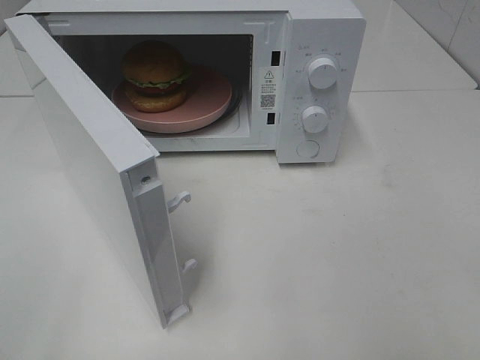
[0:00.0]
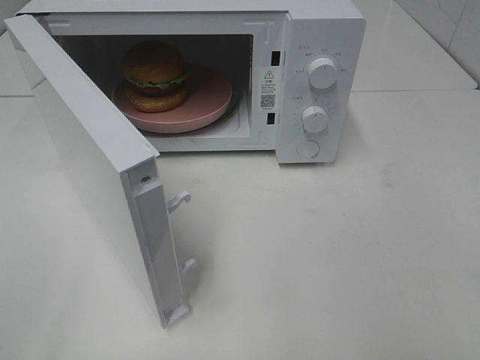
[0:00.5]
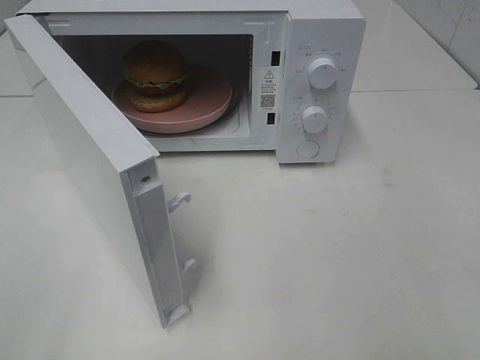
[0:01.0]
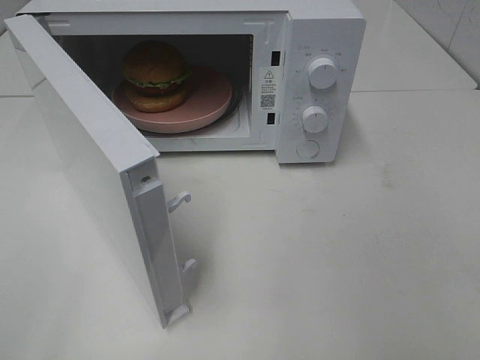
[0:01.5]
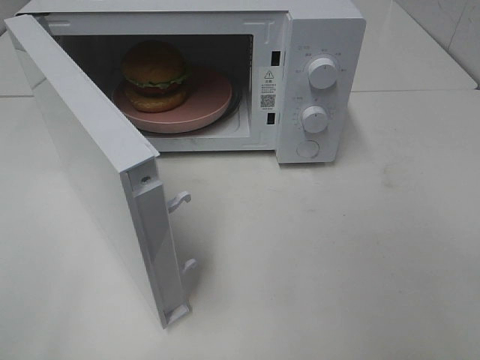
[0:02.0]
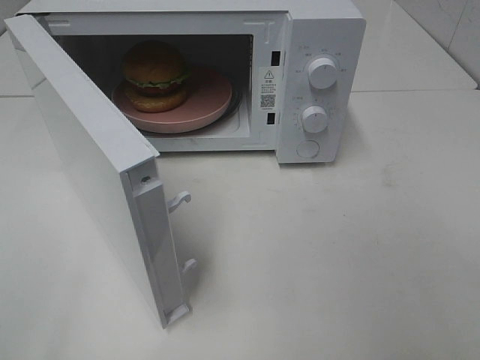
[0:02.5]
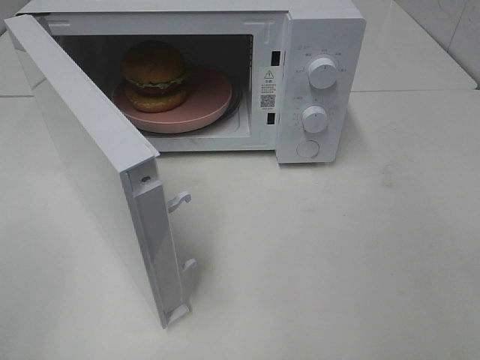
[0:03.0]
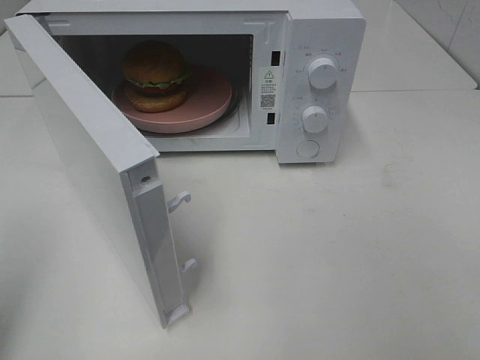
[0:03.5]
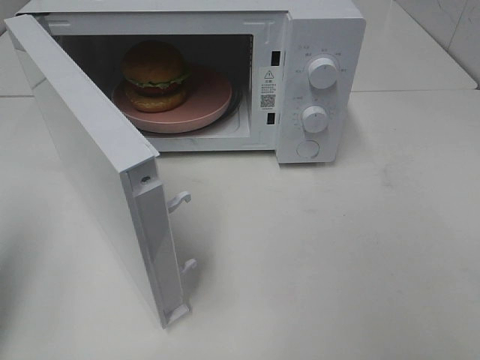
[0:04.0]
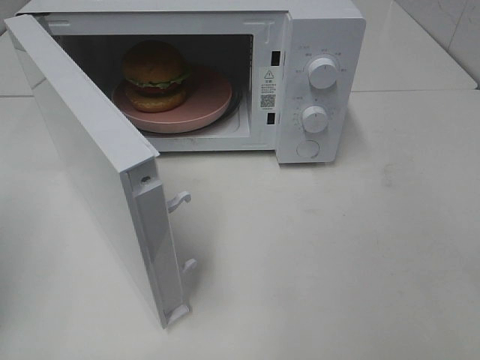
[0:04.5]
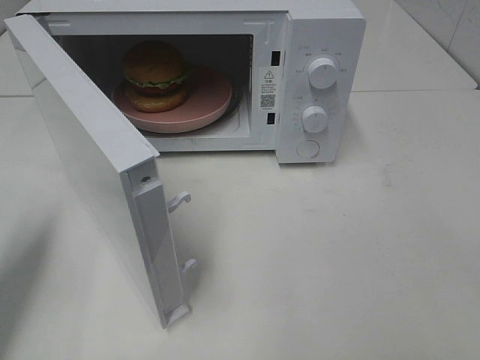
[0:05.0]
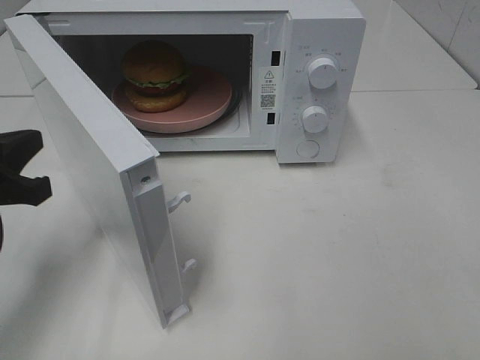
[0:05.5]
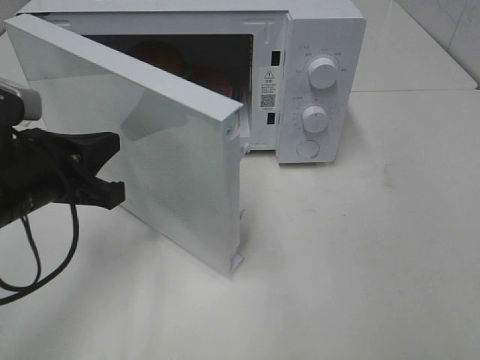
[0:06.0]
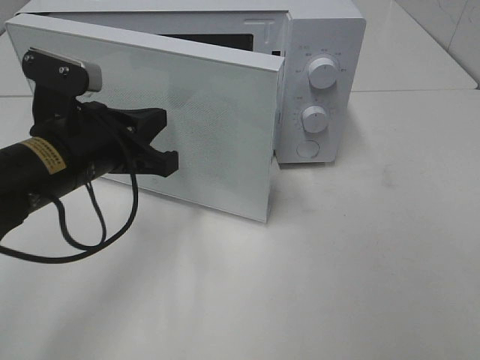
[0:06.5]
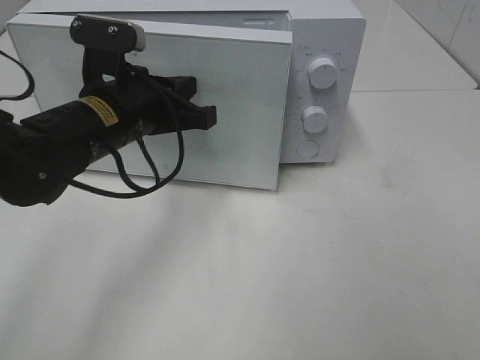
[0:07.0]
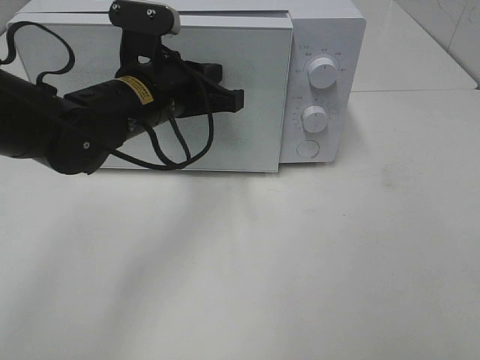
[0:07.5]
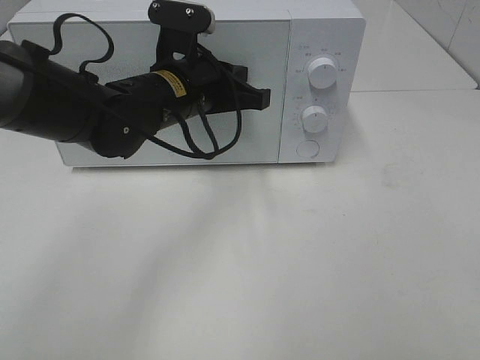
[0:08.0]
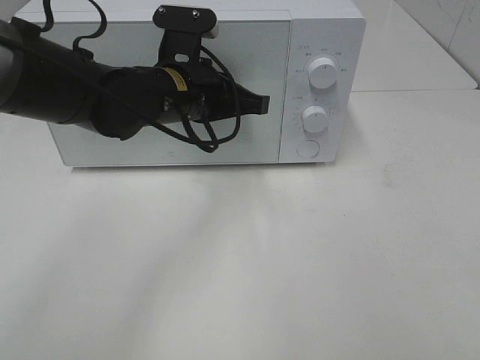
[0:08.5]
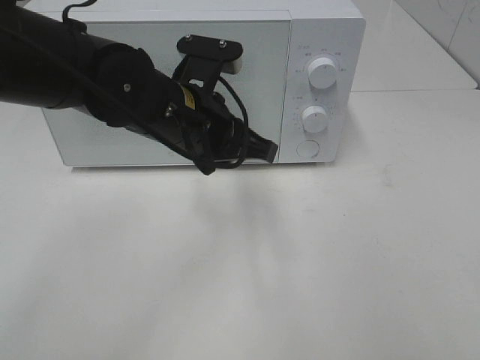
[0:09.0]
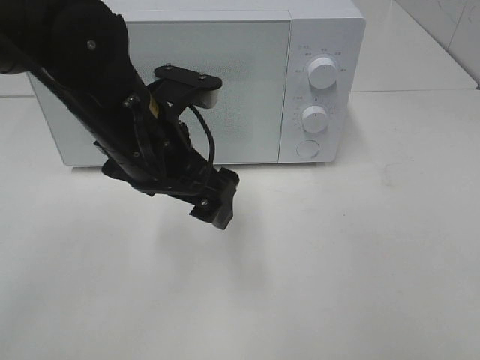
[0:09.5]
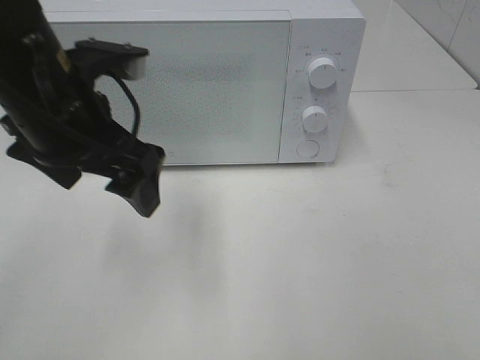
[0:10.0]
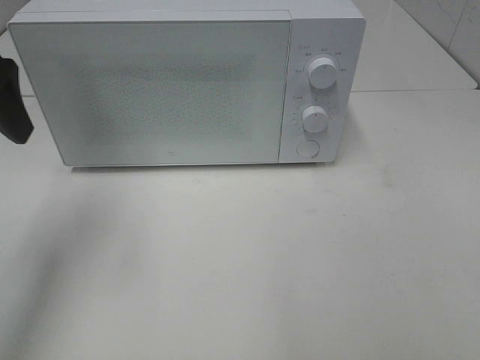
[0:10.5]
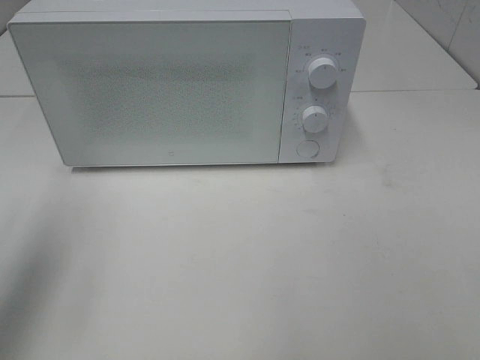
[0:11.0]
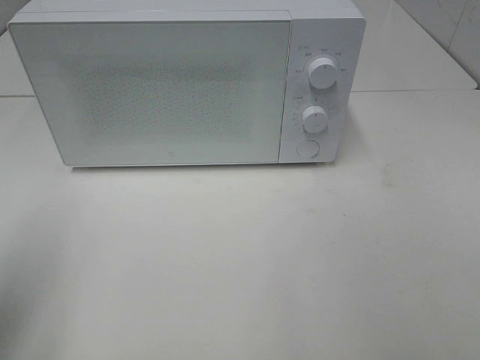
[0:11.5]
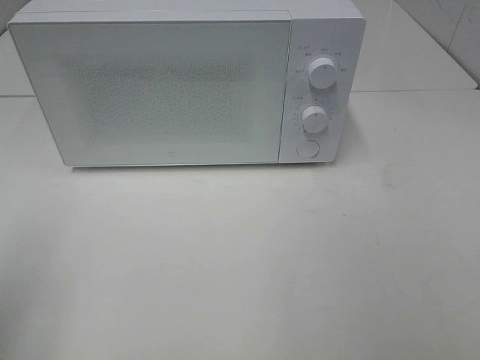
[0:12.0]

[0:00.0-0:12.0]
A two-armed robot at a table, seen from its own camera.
Task of the whole recording: Heat the burger.
Step, 0:00.0 to 0:08.5: Left hand: close the microwave door.
0:00.0 to 0:02.0: Both grippers stay put.
0:02.0 to 0:04.0: The left gripper is displaced forward by approximately 15 cm, and closes up.
0:04.0 to 0:06.0: The left gripper shifts some 15 cm to the right, downward and forward.
0:06.0 to 0:08.0: The left gripper shifts some 20 cm to the right and forward.
0:08.0 to 0:10.0: The left gripper goes some 15 cm backward, to the left and upward, and opens.
0:10.0 to 0:12.0: The left gripper shifts roughly 25 cm to the left and backward.

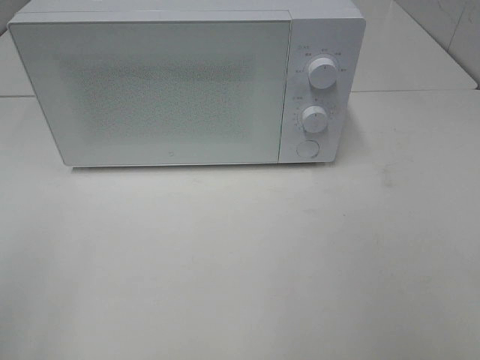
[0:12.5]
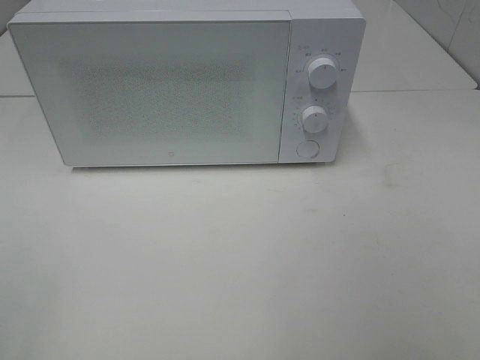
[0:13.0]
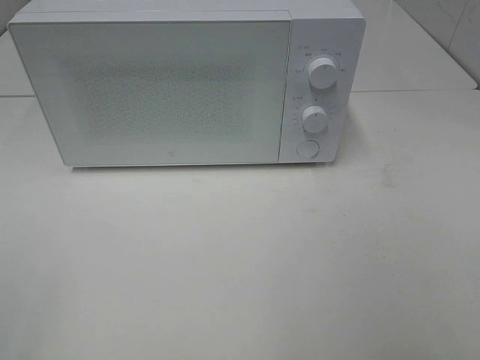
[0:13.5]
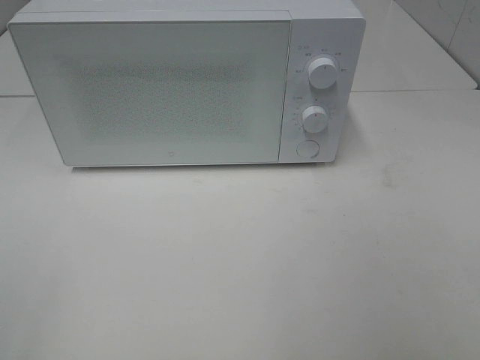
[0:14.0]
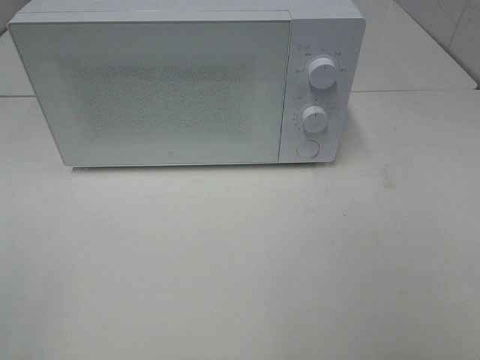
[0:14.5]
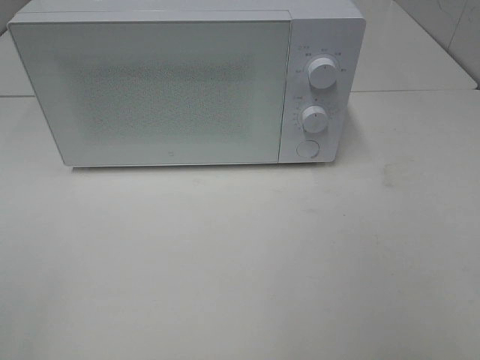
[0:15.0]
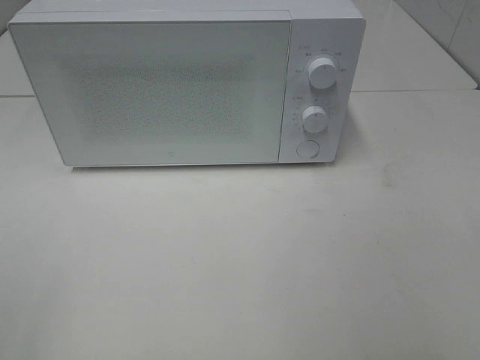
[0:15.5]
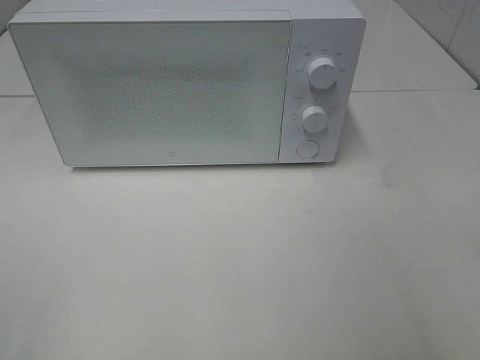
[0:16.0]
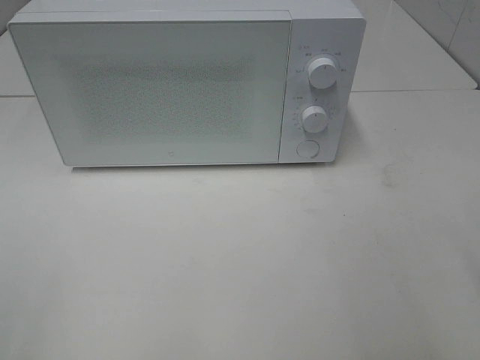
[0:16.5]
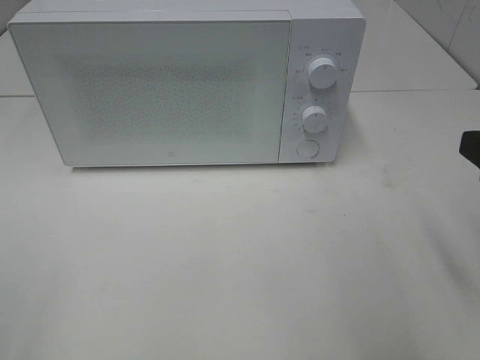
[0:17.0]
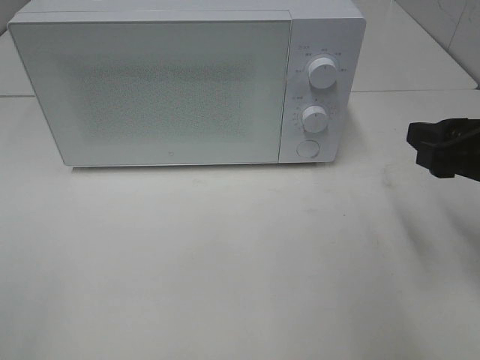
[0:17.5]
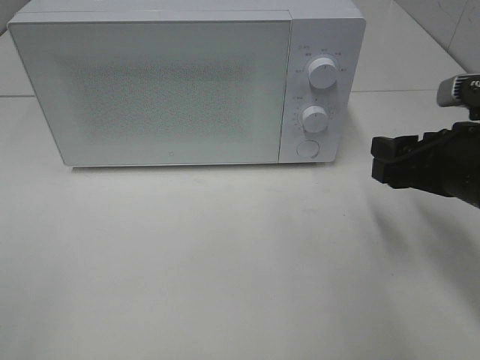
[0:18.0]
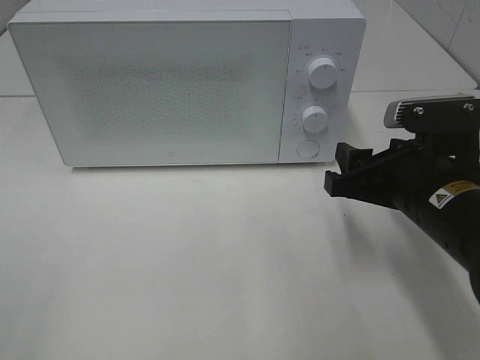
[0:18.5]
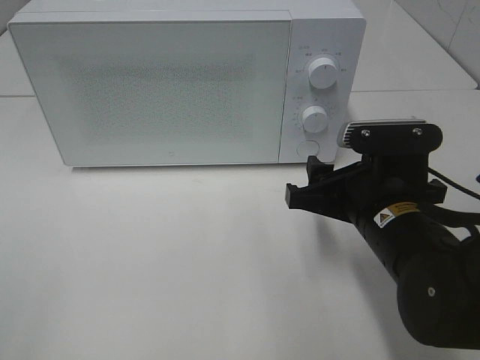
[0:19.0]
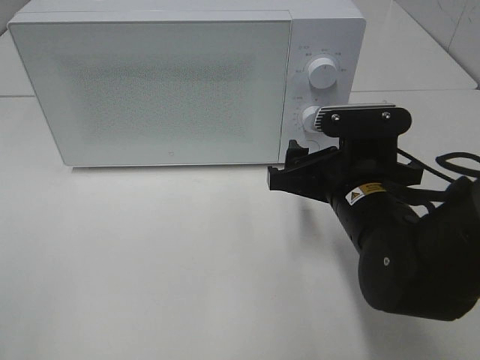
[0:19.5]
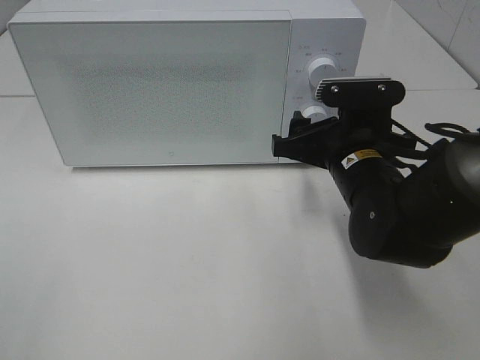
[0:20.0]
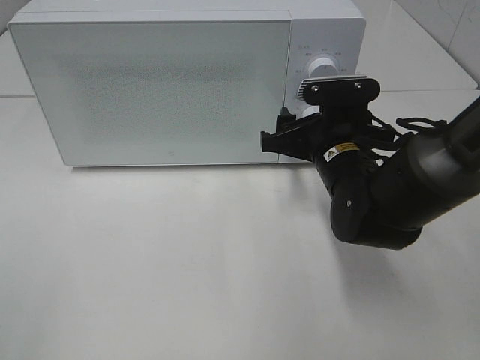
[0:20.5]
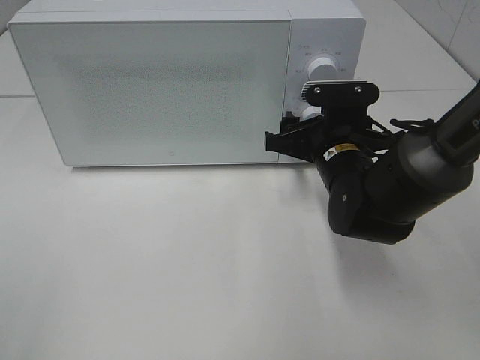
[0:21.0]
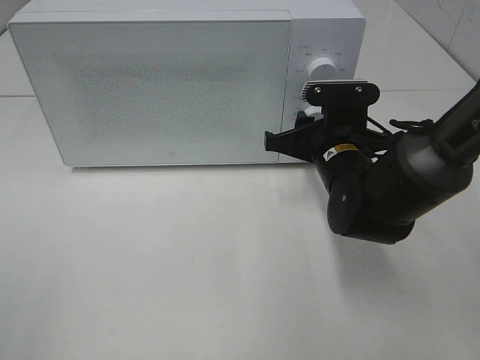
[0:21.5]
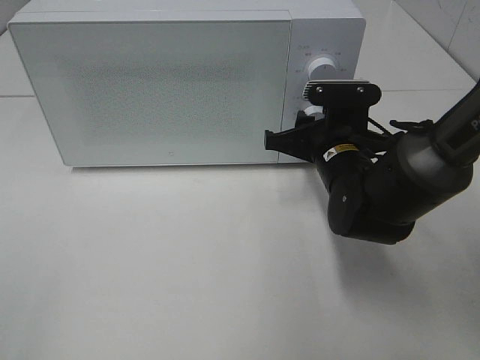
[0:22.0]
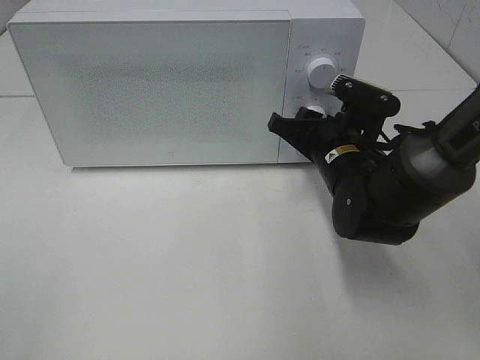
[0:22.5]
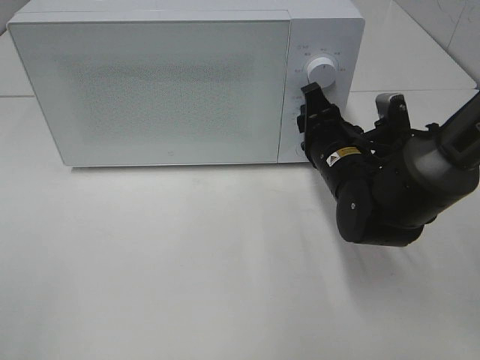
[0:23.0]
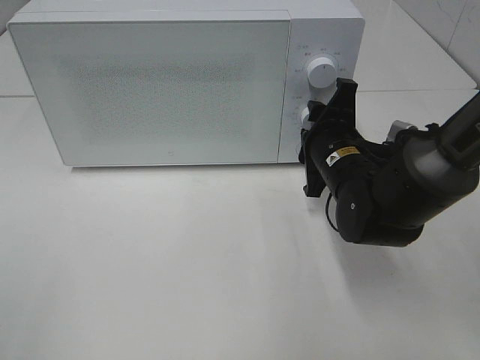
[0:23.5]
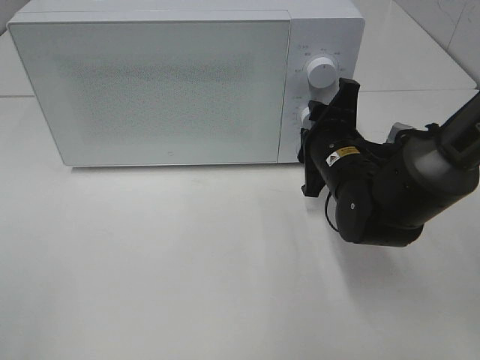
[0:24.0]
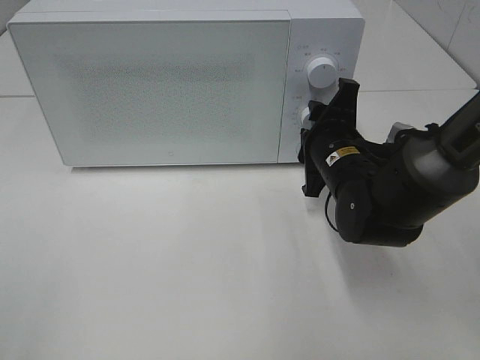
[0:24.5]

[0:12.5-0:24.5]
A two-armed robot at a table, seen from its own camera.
Task of the whole recording: Heat the burger.
0:16.5 to 0:18.5: The right gripper travels forward, downward and to the left by some 20 cm.
0:18.5 to 0:20.5: The right gripper goes roughly 10 cm forward and to the left.
0:20.5 to 0:22.5: The right gripper closes.

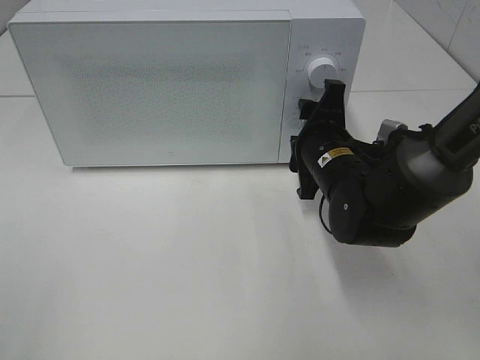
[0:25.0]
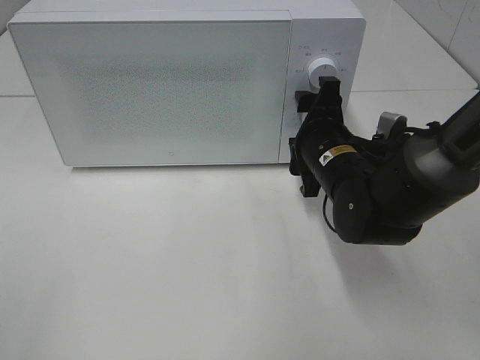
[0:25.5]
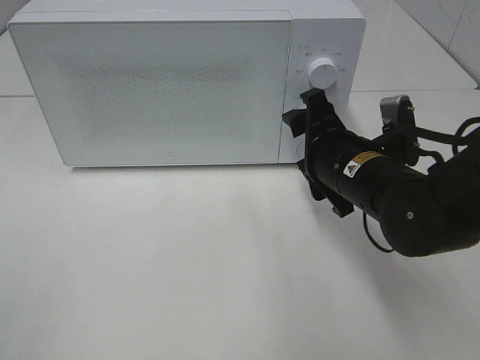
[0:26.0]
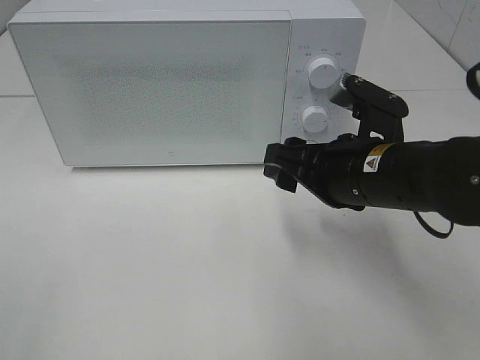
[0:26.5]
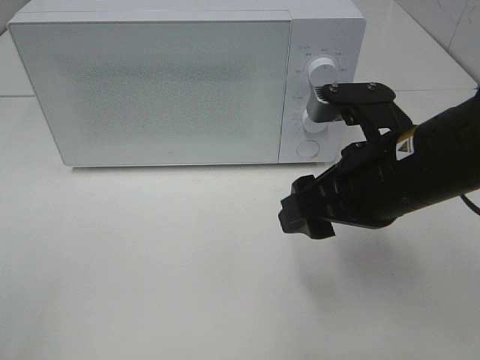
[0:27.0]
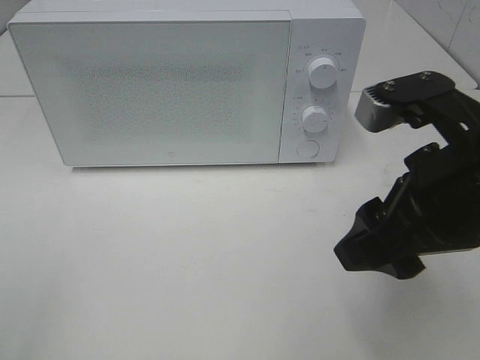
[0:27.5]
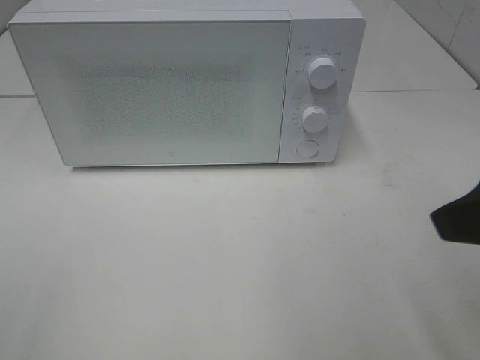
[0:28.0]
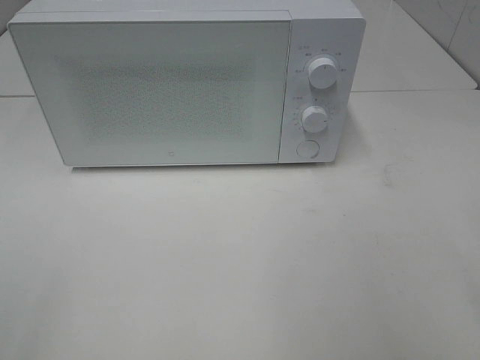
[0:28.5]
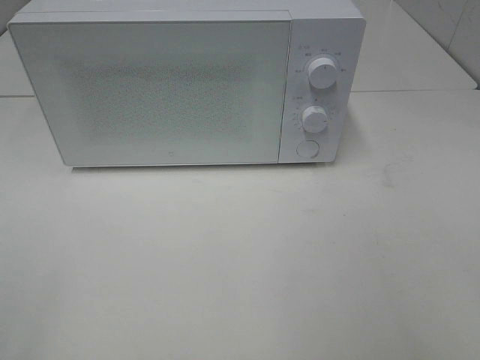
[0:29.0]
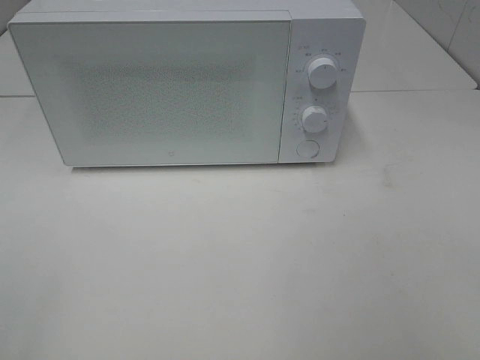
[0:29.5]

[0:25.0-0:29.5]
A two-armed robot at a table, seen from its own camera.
Task of the whole recording: Heat the burger.
0:25.0 to 0:27.0: The right gripper shifts about 15 cm backward and upward.
0:27.0 to 0:29.5: The right gripper travels backward, to the right and upward by about 25 cm.
